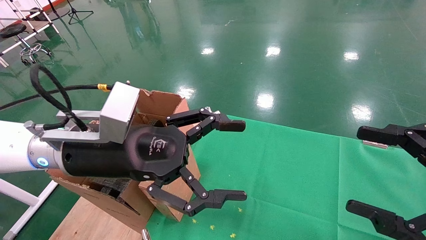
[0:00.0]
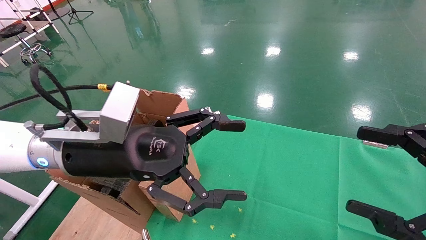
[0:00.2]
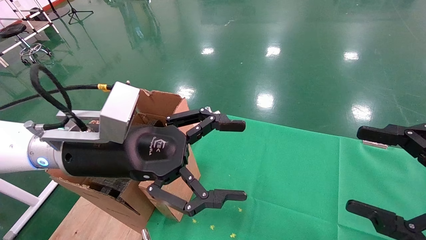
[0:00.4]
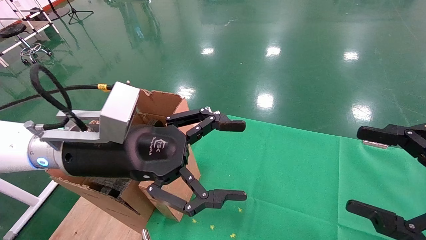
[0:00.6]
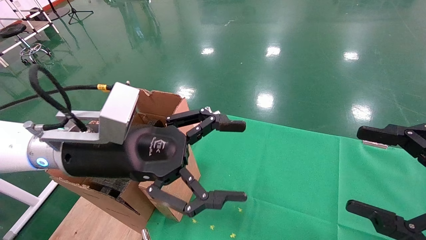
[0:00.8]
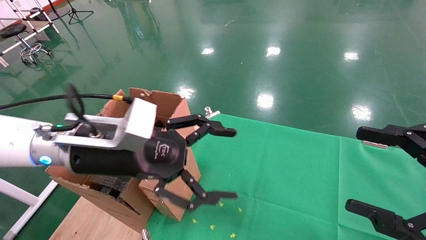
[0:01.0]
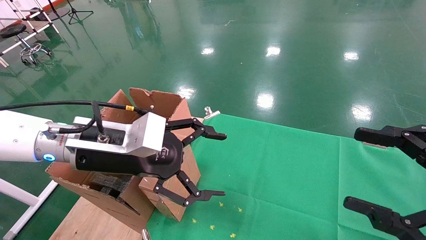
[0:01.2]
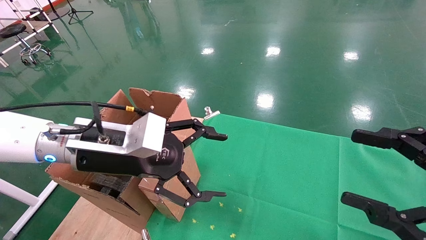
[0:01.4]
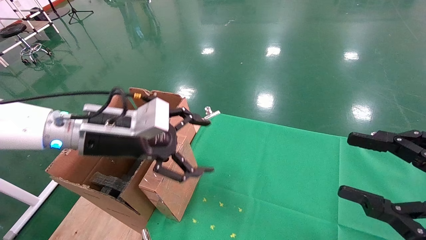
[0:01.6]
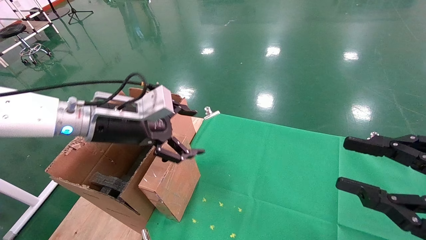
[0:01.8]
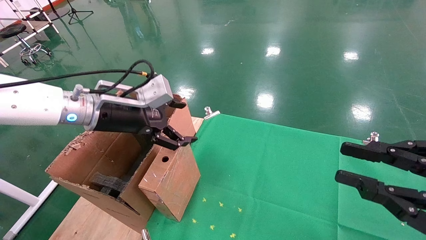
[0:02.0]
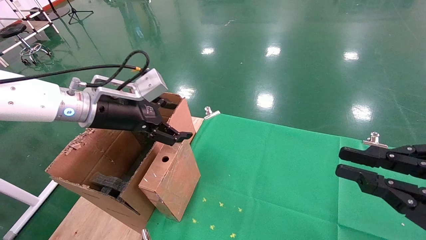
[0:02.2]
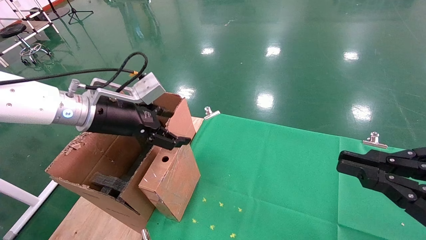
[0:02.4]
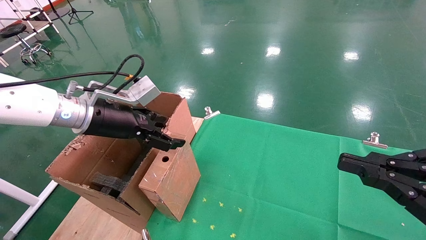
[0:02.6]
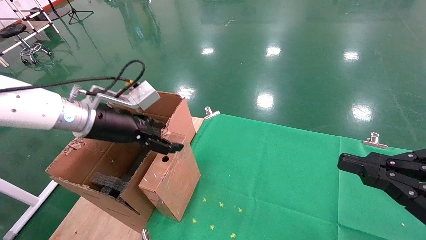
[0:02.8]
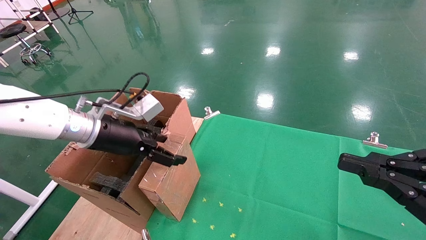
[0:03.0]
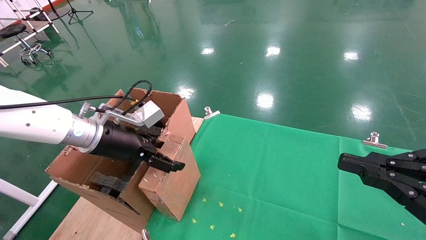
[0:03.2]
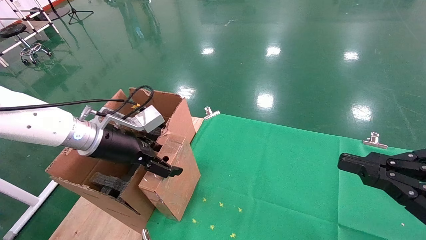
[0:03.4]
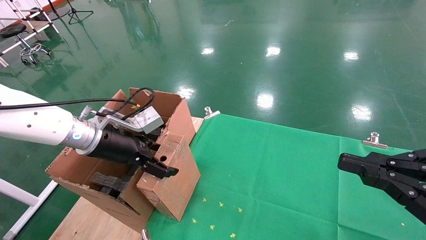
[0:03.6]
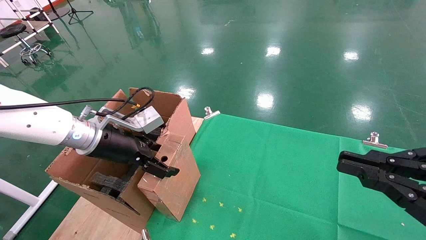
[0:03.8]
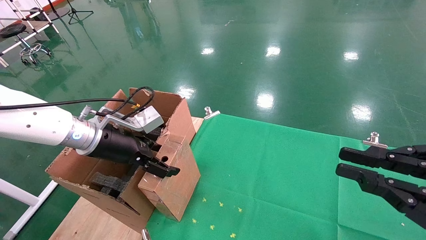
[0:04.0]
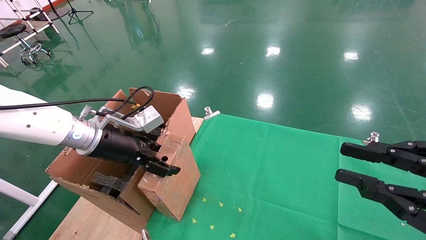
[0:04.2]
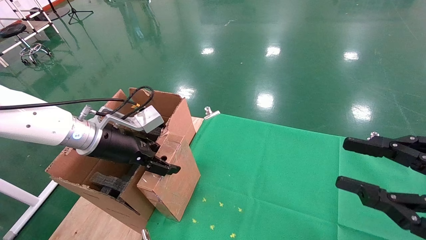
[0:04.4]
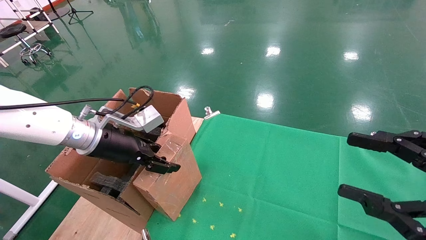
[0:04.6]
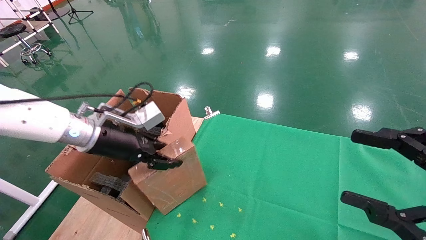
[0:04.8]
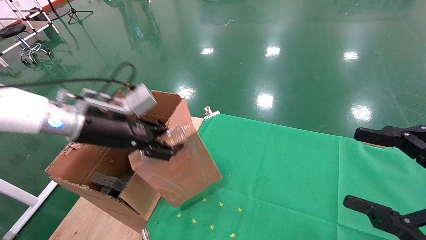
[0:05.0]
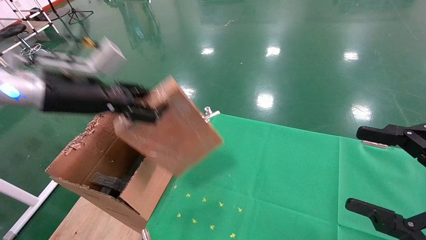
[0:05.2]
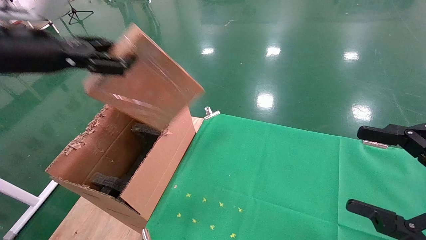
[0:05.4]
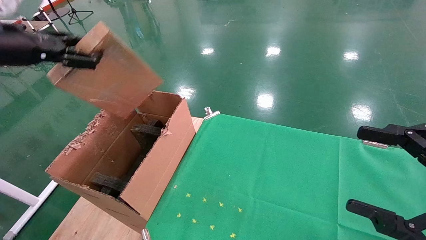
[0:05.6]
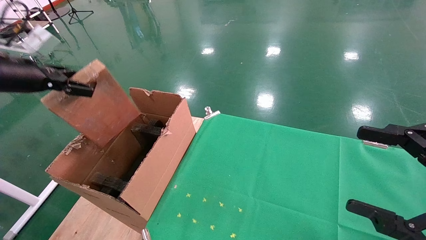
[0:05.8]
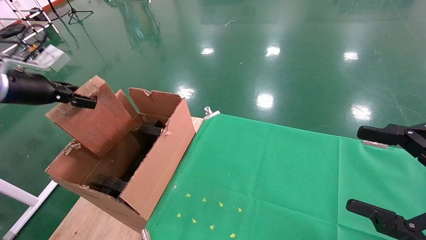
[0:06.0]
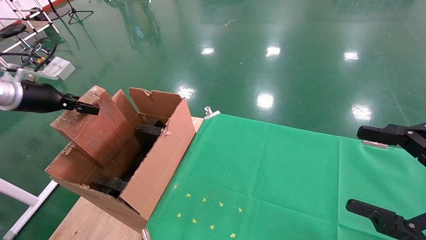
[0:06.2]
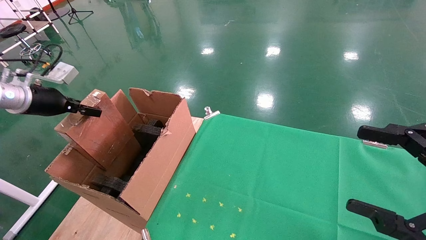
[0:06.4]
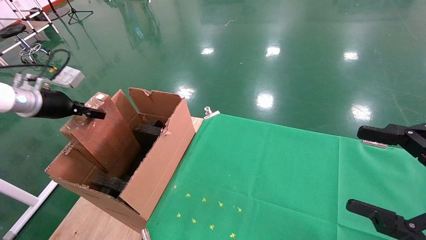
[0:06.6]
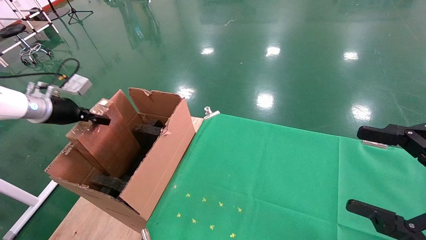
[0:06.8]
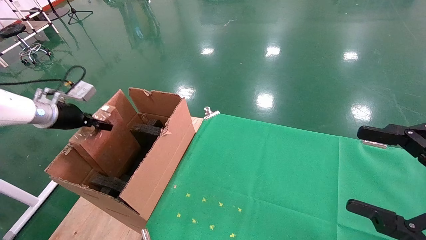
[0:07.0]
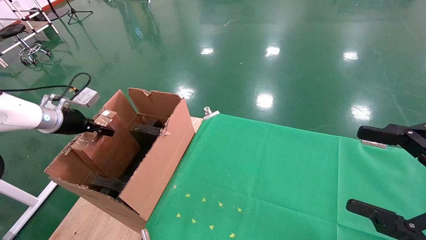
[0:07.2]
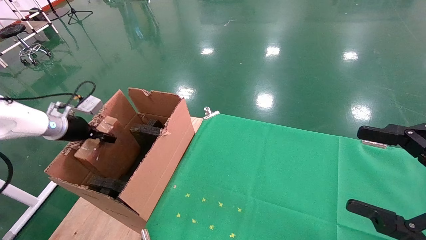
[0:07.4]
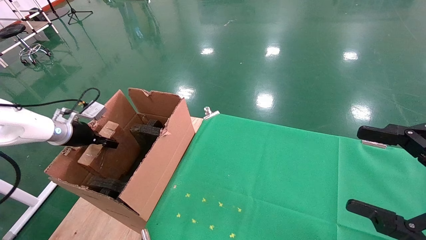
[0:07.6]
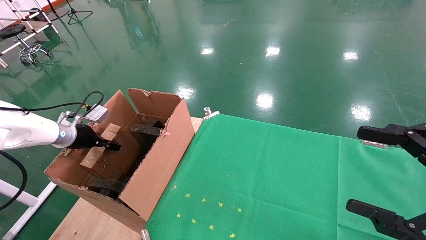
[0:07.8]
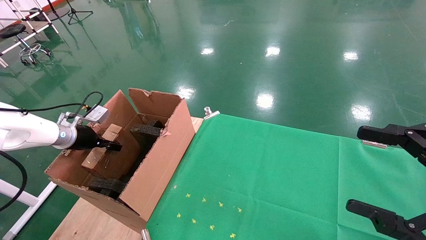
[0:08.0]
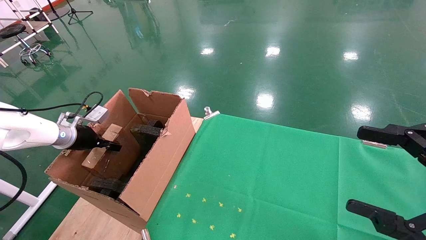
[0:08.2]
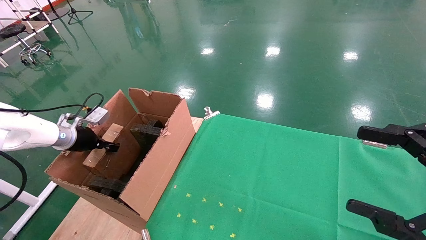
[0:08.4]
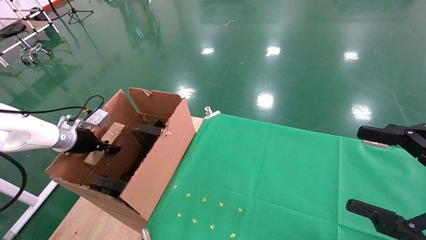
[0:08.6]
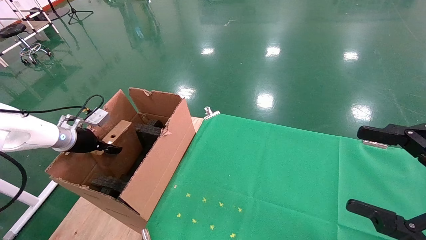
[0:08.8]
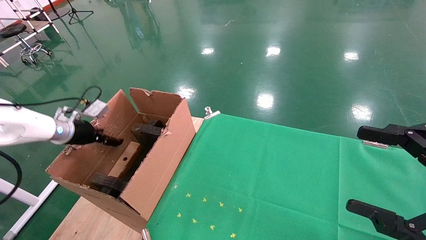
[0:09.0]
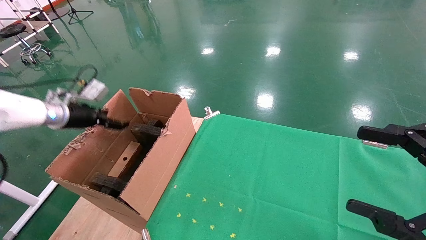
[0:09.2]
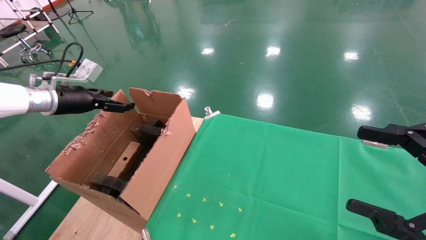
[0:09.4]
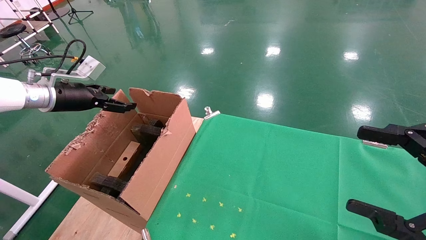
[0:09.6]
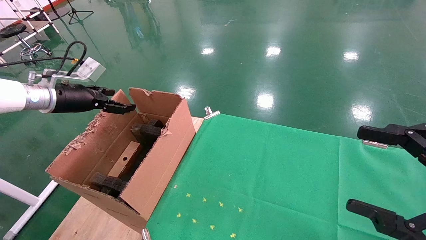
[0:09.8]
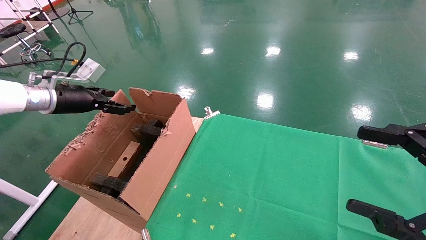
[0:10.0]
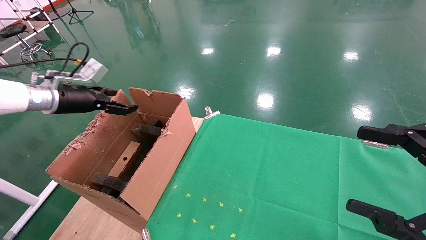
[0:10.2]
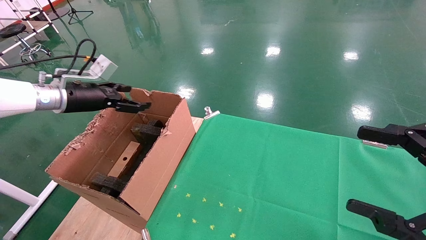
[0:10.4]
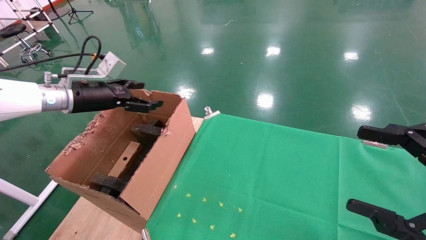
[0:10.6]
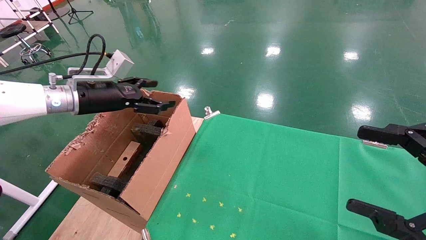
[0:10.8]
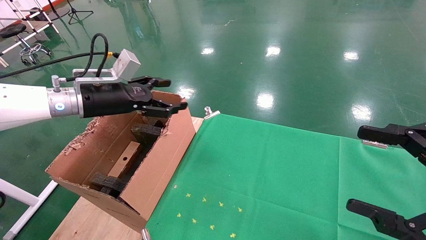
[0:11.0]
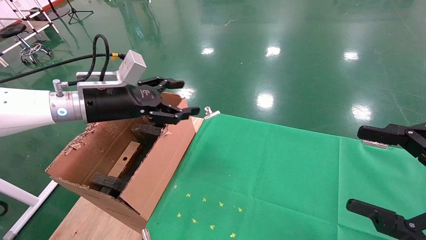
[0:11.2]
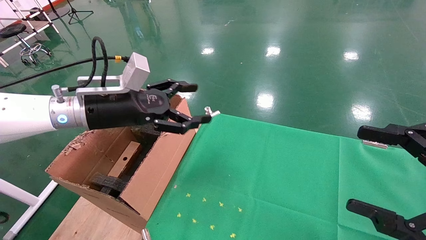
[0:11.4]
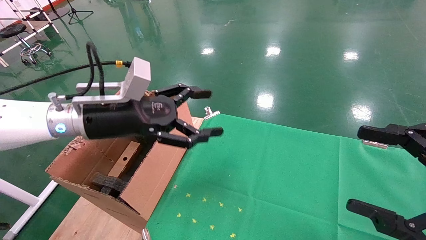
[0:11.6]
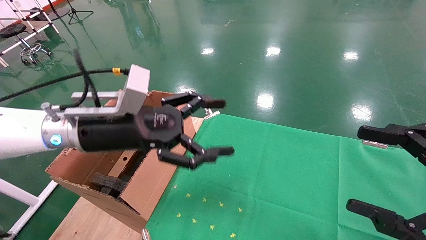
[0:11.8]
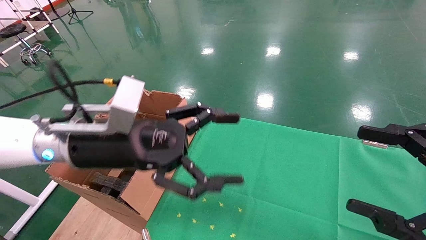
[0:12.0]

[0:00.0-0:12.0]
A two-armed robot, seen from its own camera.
Task of the whole recording: using a robotic arm to pick up a cardboard box and palace it the carton.
Step, 0:01.2 to 0:04.6: Pick up the mouse and the power cord paper box.
Step, 0:04.8 to 0:09.2: Place the mouse and the power cord paper box into the container.
0:00.0 to 0:01.6: The left gripper moves forward, roughly 5 cm.
0:01.6 to 0:03.0: The left gripper changes place by approximately 5 cm; the right gripper closes up.
0:03.0 to 0:04.4: The grippers stay close to where they were, moving slightly.
0:04.4 to 0:06.0: The right gripper opens. The left gripper shifts roughly 20 cm to the left and upward, and closes its fingers.
0:06.0 to 0:07.6: The left gripper travels downward and forward by about 15 cm.
0:07.6 to 0:09.0: The left gripper opens up.
0:09.0 to 0:10.4: The left gripper goes roughly 10 cm upward and to the right, and opens its fingers.
0:10.4 to 0:12.0: The left gripper goes roughly 25 cm to the right and backward.

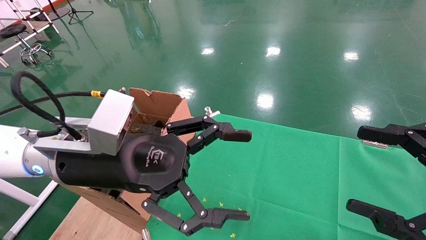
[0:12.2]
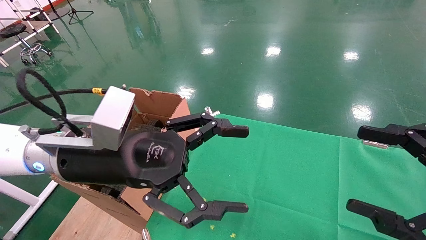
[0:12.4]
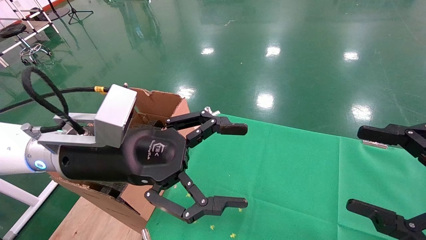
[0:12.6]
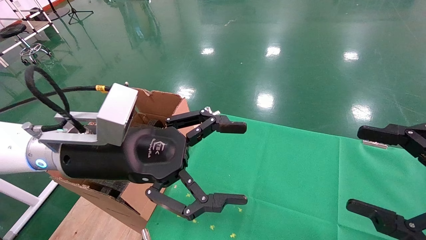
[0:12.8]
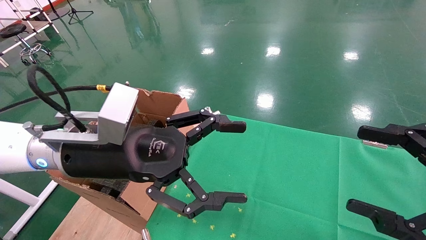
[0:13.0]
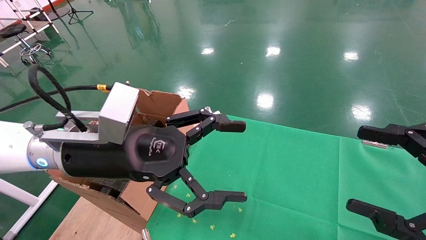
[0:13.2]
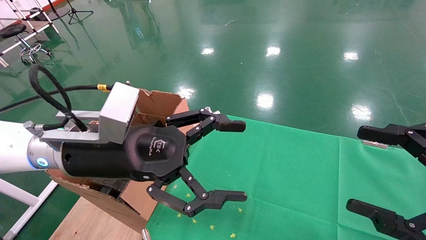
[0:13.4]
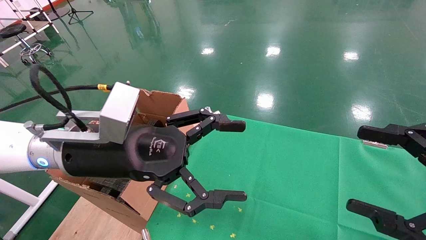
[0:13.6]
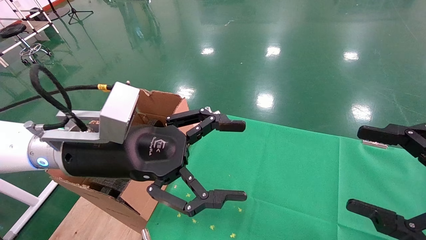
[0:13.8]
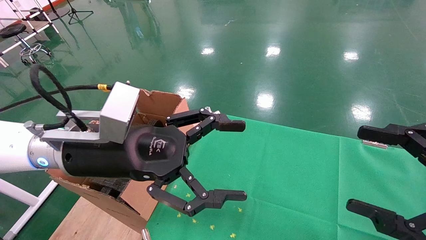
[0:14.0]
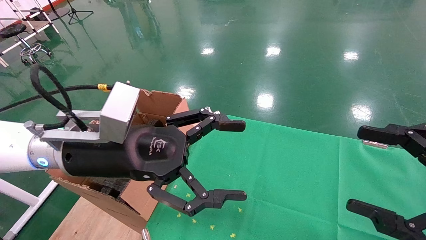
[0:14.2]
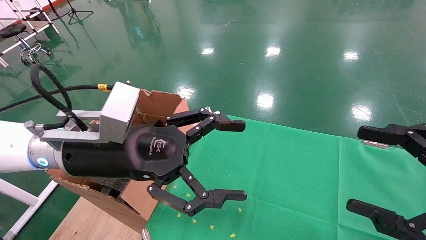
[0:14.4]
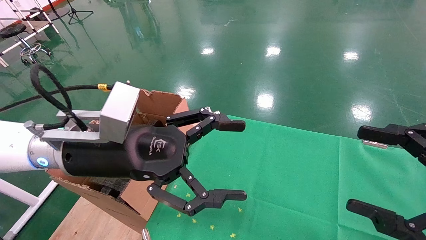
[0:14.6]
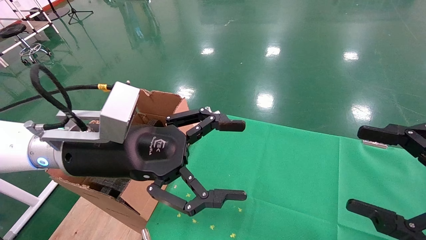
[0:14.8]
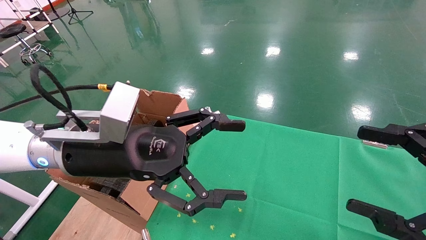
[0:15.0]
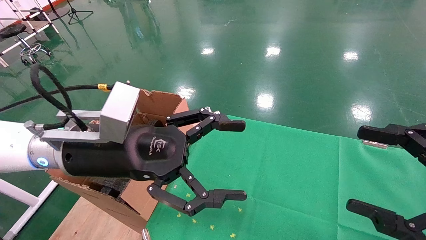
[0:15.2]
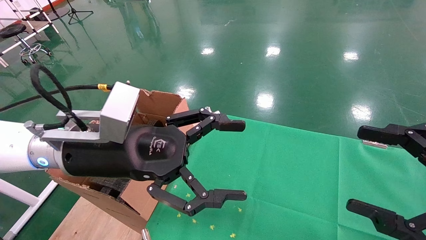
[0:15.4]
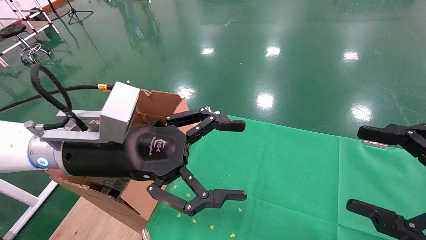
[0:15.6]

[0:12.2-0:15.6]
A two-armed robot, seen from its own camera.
Task of the whole recording: using a robotic arm to pick up a cardboard box and palace it the carton.
0:12.2 to 0:15.6: The two grippers keep their place.

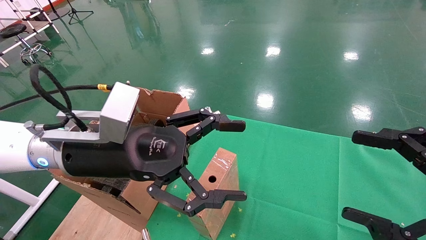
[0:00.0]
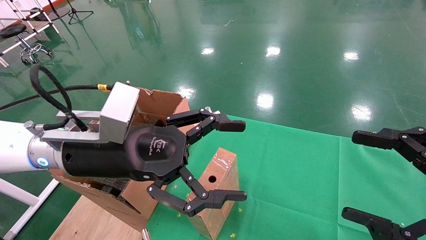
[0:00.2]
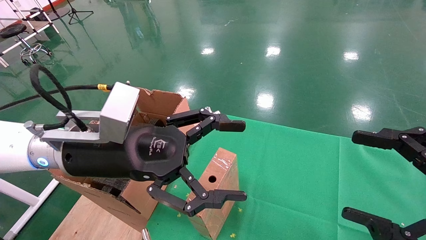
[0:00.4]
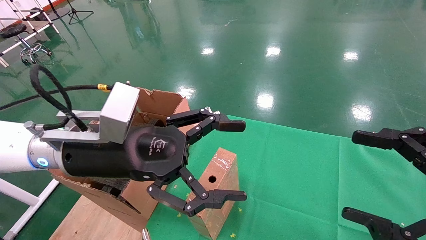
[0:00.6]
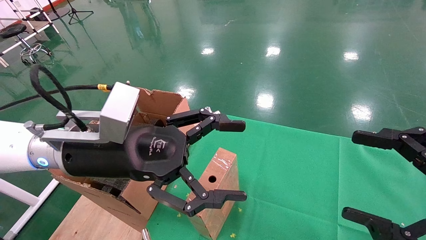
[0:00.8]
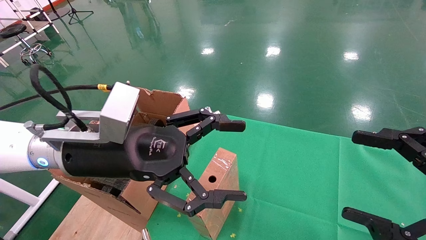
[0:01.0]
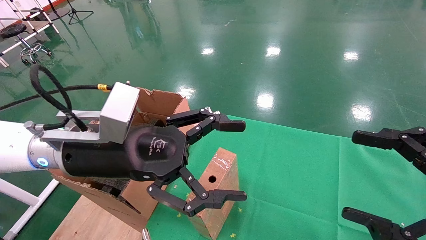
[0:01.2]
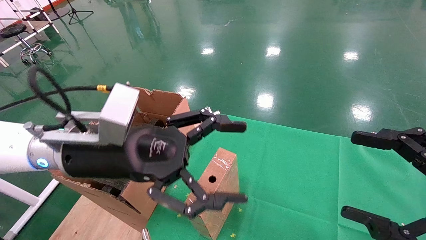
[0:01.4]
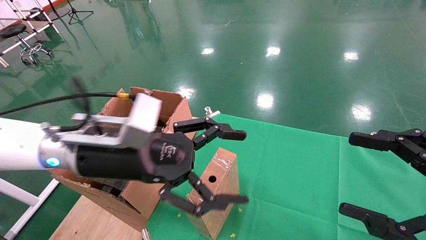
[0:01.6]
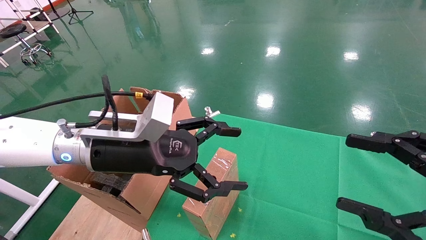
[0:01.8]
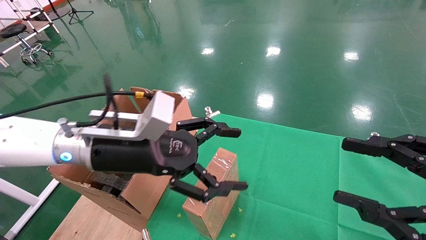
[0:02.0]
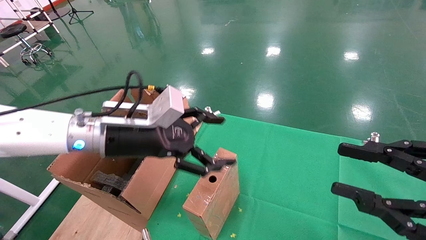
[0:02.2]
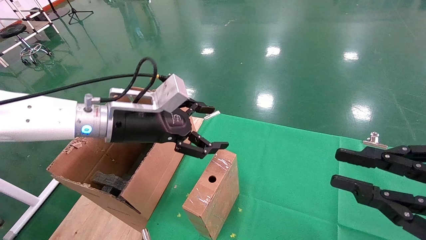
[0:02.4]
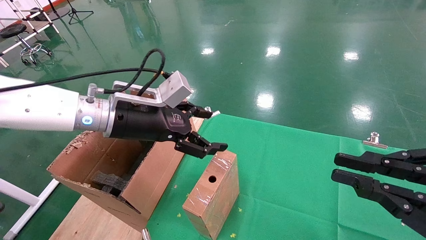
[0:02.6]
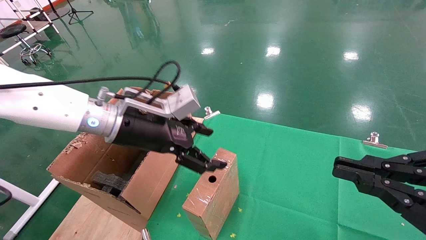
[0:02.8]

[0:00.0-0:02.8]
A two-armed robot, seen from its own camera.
Task of the whole recording: using a robotic arm to pick up a cardboard box and palace it the carton.
0:00.0 to 0:01.4: The two grippers keep their place.
0:01.4 to 0:02.8: The left gripper travels forward by some 5 cm. The right gripper closes its fingers.
